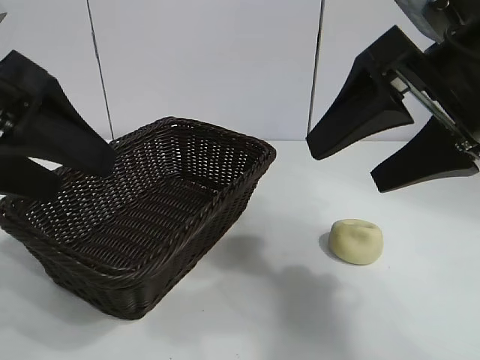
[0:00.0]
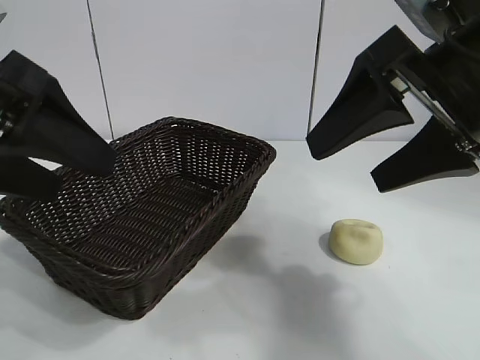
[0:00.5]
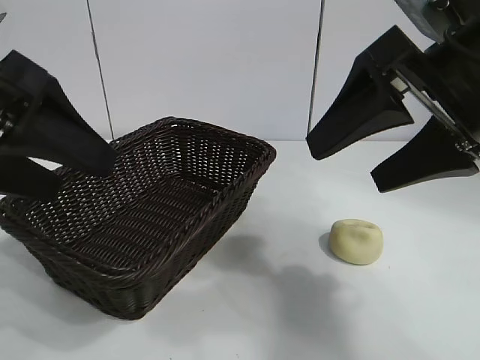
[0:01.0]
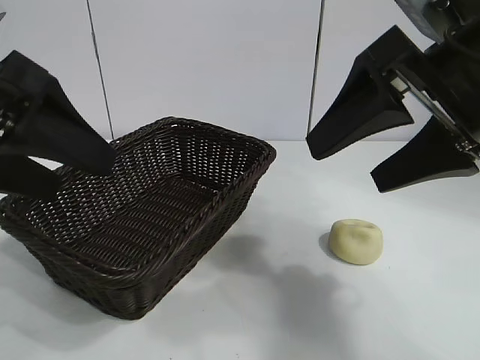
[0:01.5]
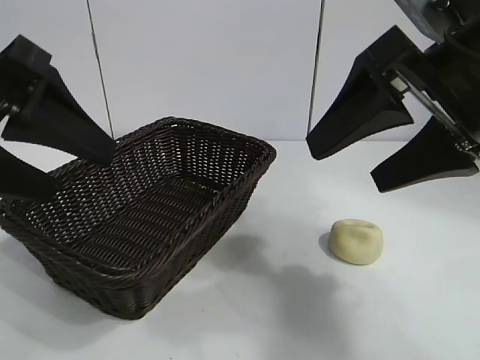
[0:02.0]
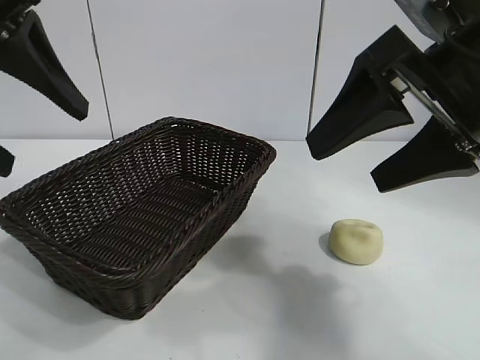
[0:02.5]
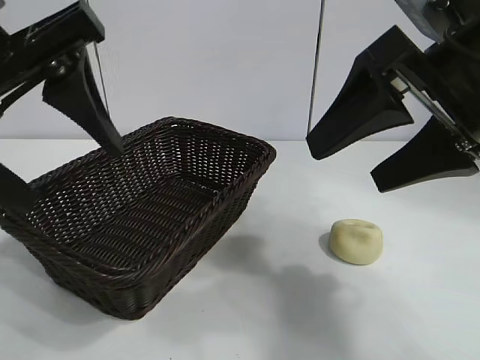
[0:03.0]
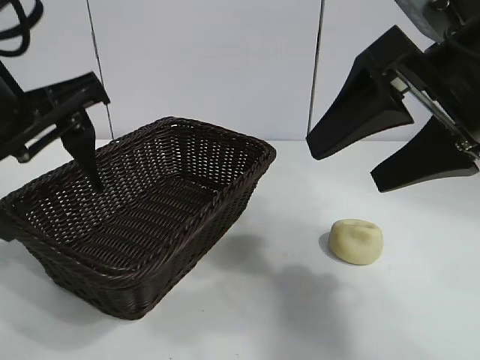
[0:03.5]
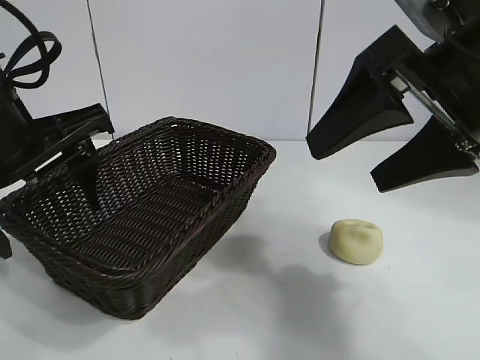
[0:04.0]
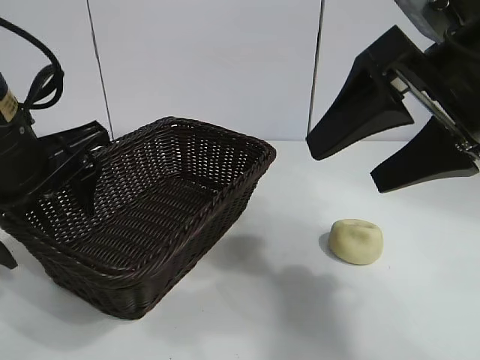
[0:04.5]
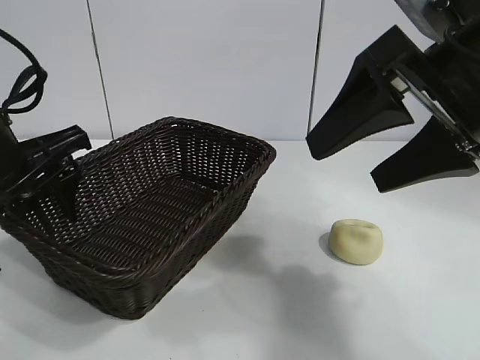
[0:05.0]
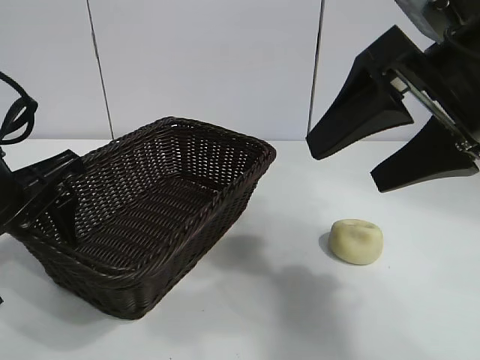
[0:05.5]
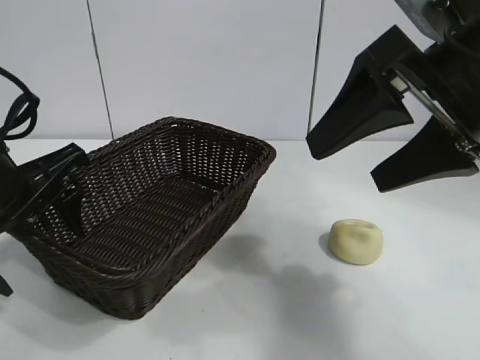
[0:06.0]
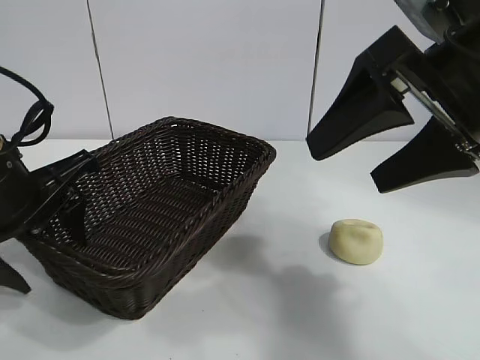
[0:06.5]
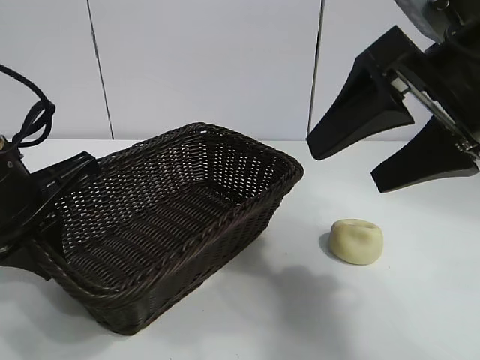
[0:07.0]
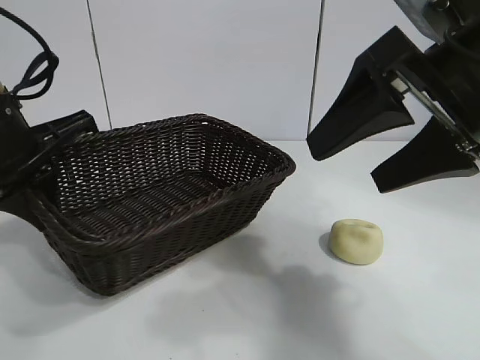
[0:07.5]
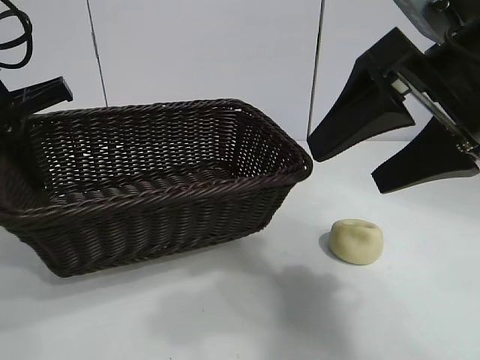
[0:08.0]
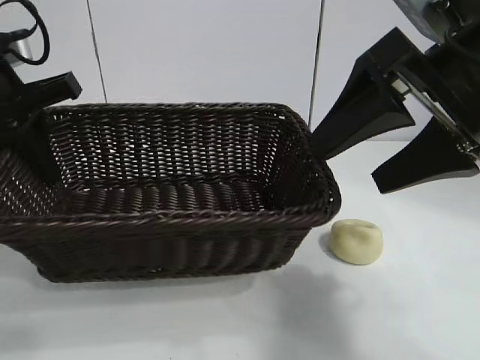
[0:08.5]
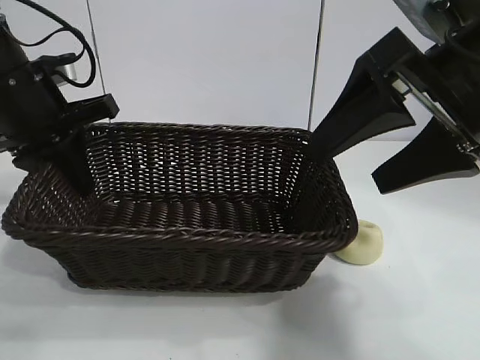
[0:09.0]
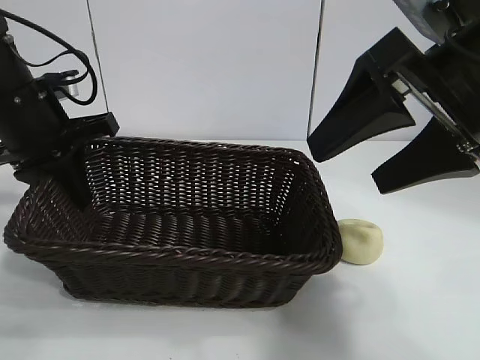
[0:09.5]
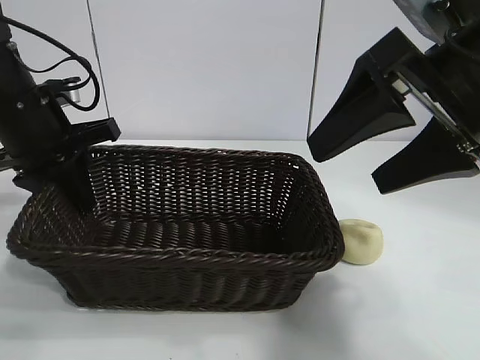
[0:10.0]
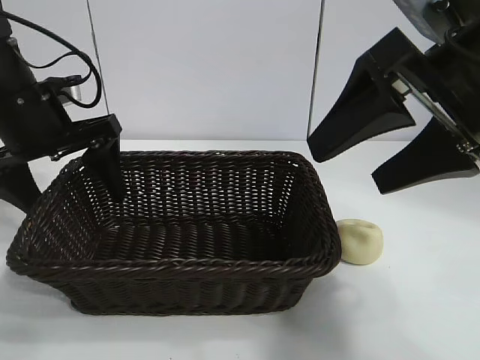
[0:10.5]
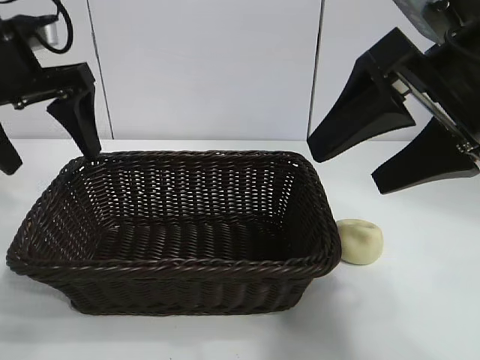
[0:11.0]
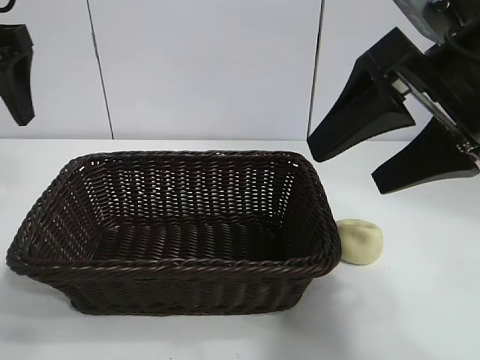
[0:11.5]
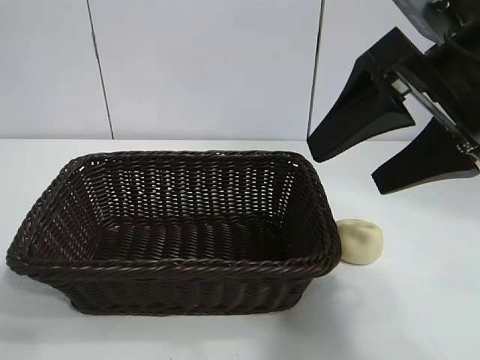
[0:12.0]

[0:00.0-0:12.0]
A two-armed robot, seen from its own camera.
Task of the whole recording: pick up the egg yolk pastry and put it into the basket.
Step, 0:01.5 to 0:06.5: Grasp the basket with left gripper.
Step, 0:07.0 to 0:10.5: Place the basket in the center of view with left gripper.

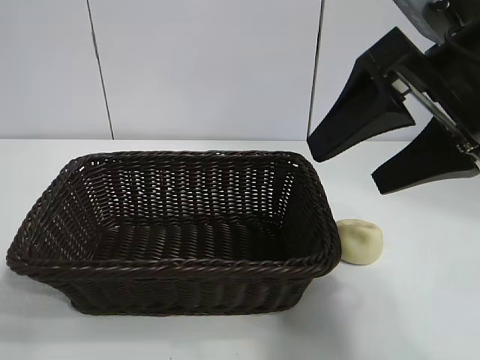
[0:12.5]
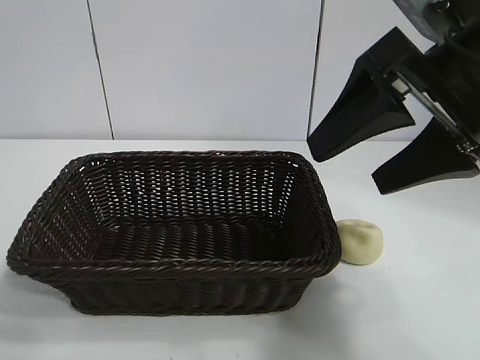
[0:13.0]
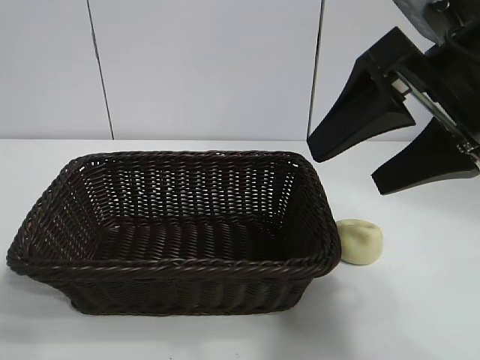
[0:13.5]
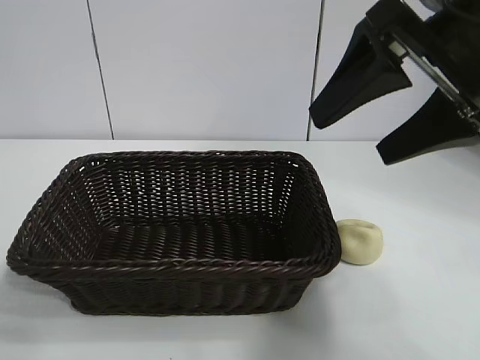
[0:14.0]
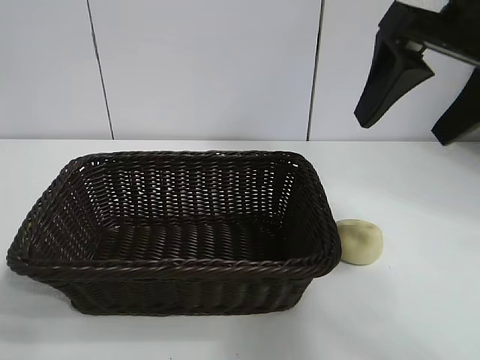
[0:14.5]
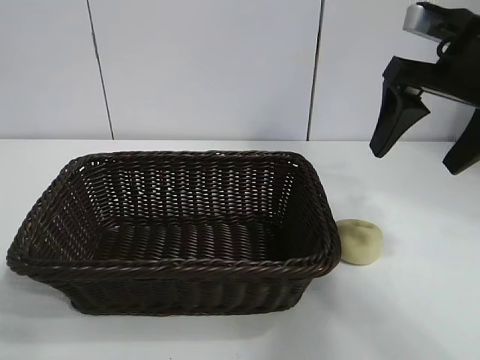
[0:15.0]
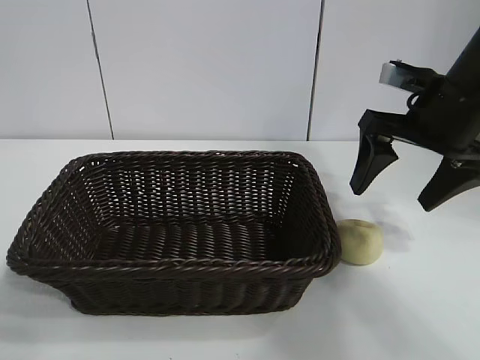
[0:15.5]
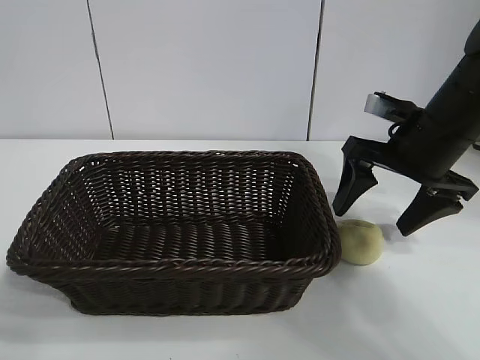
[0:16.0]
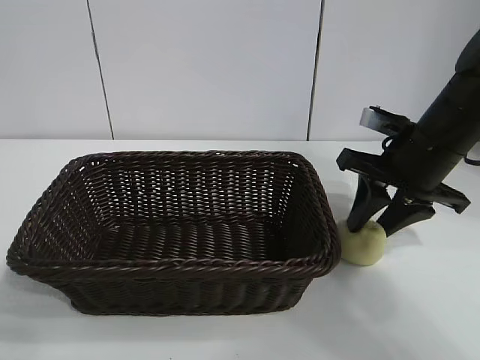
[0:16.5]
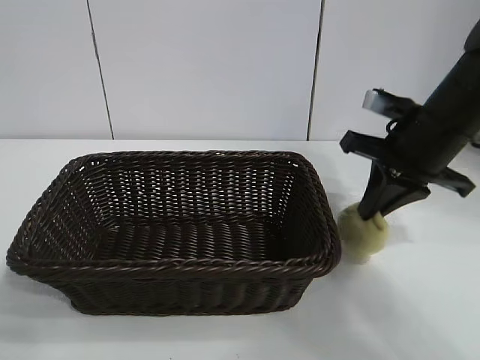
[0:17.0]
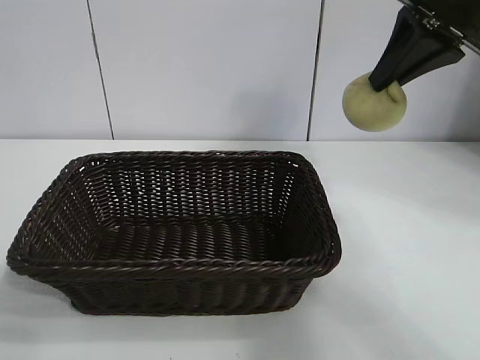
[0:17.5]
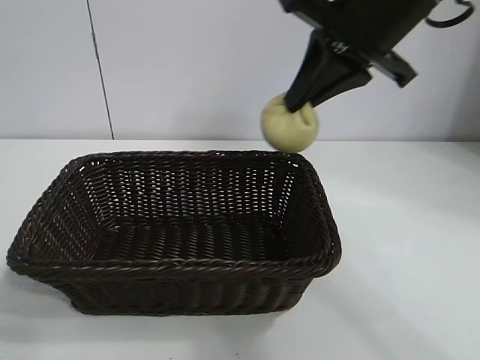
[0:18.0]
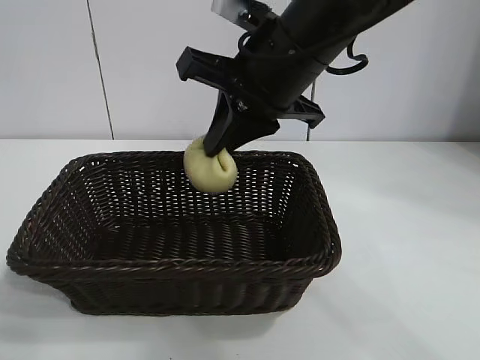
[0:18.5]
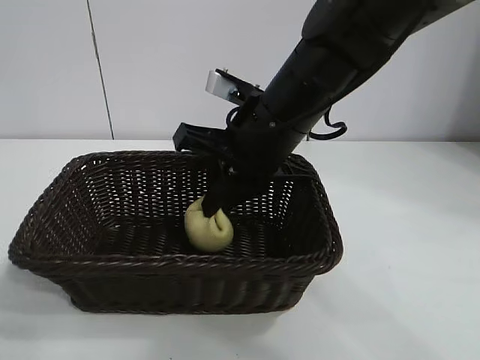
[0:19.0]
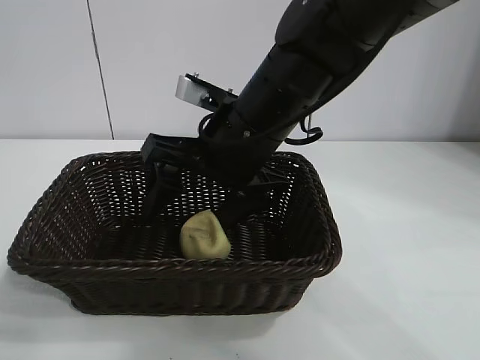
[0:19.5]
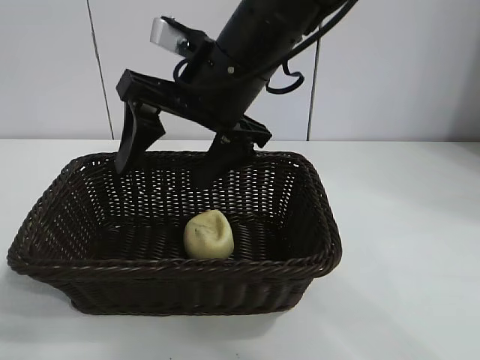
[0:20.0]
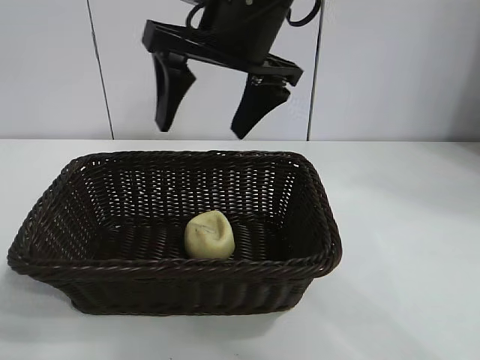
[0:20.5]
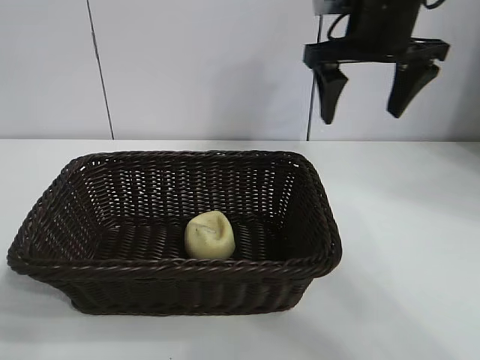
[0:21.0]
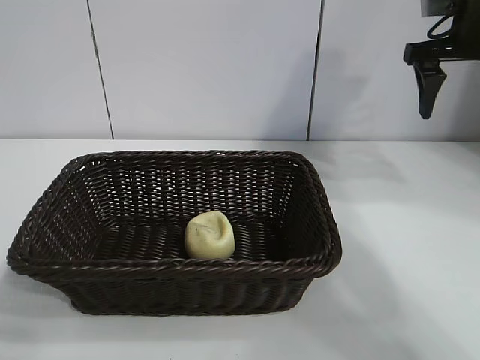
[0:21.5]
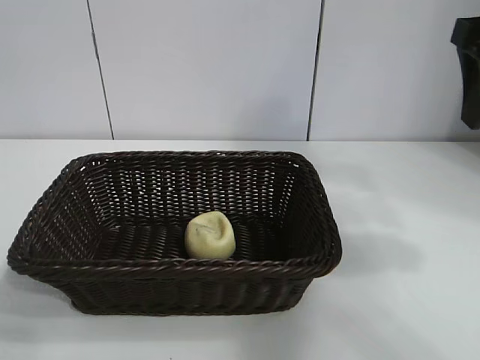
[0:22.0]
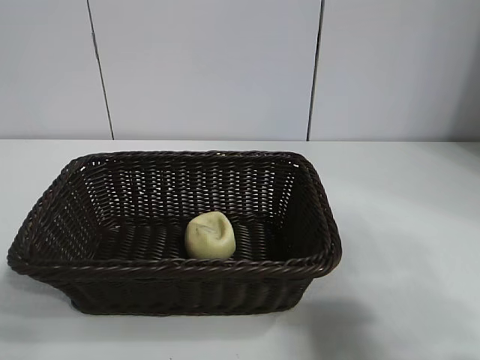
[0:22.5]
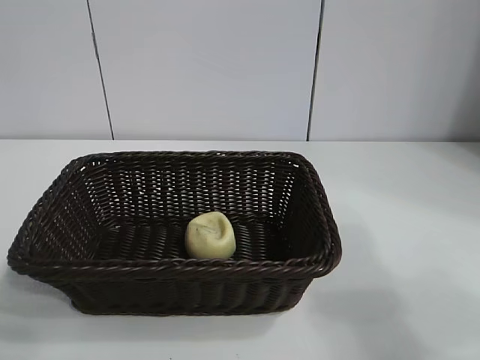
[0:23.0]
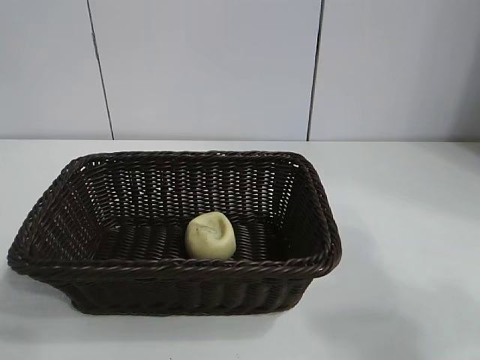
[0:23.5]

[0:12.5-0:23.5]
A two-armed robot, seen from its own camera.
Task of the whole recording: pick up the egg yolk pastry and put it into the basket.
Step, 0:12.5 to 0:16.5: Grasp egg yolk pastry with right gripper.
Step, 0:17.0 to 0:19.5: Place the egg yolk pastry in the basket with right gripper.
